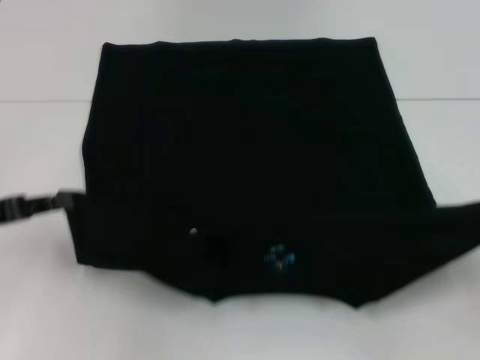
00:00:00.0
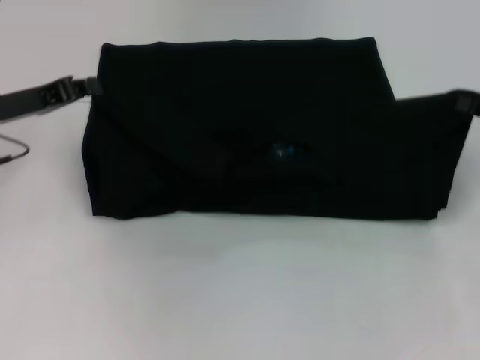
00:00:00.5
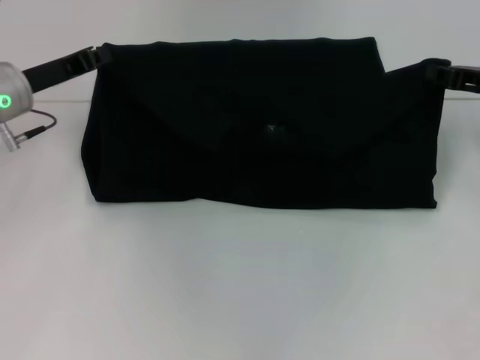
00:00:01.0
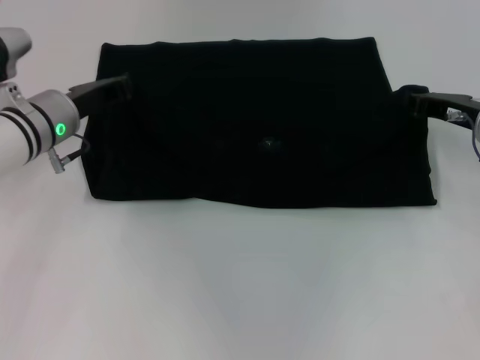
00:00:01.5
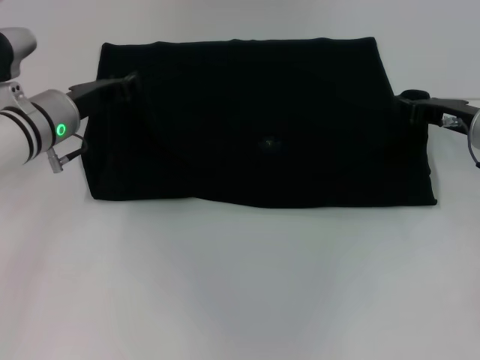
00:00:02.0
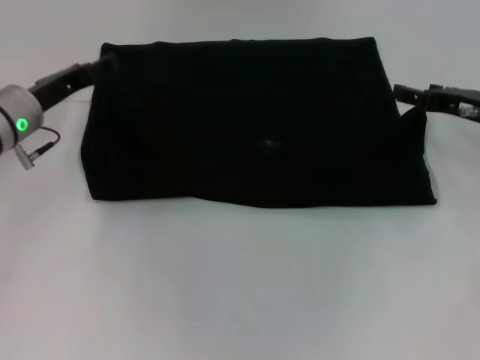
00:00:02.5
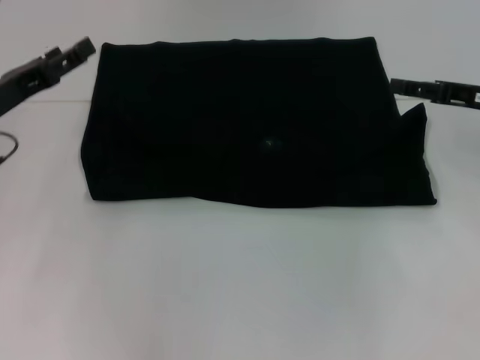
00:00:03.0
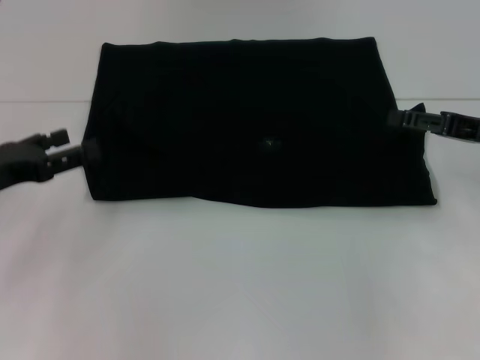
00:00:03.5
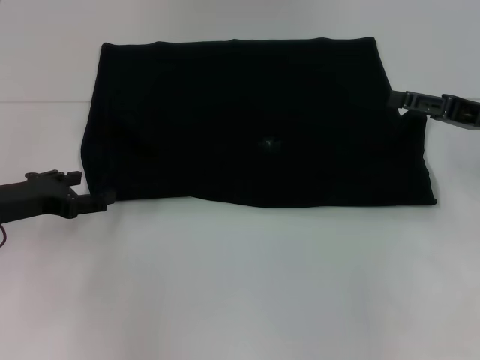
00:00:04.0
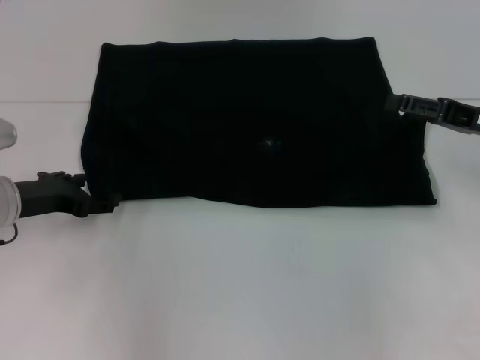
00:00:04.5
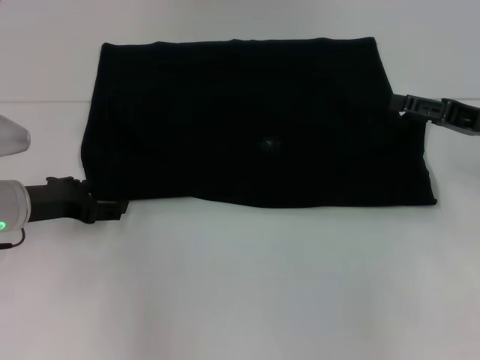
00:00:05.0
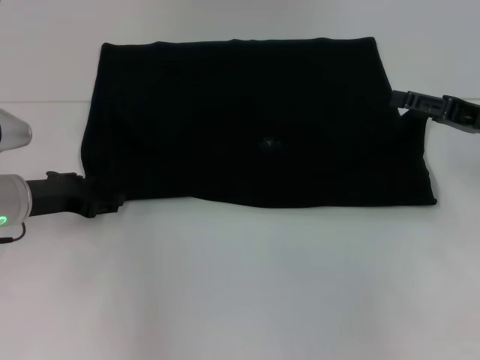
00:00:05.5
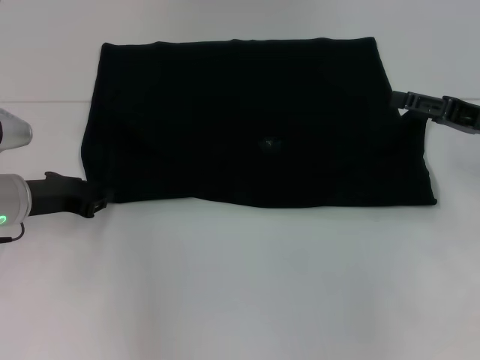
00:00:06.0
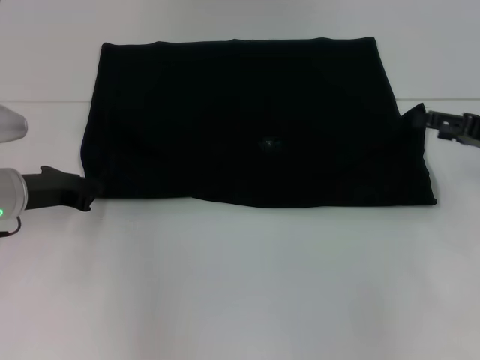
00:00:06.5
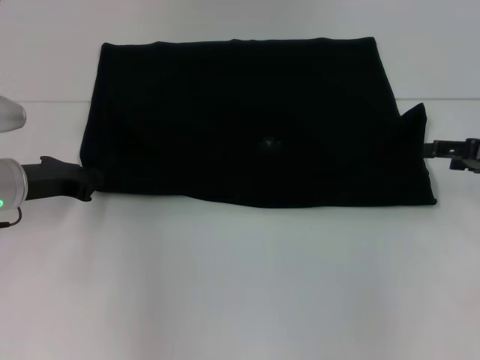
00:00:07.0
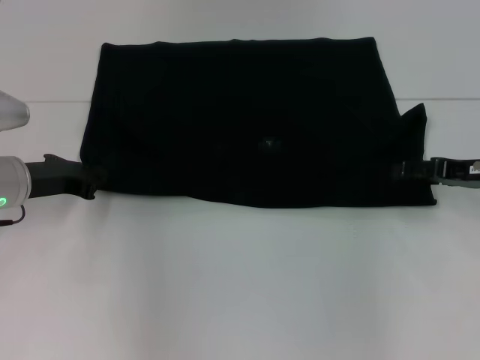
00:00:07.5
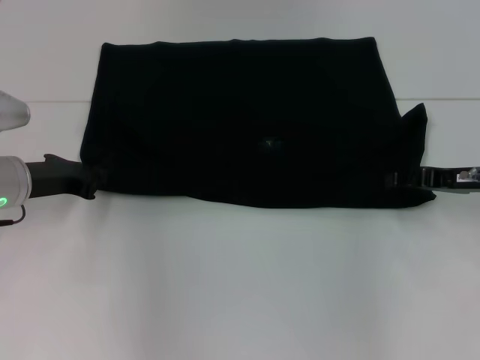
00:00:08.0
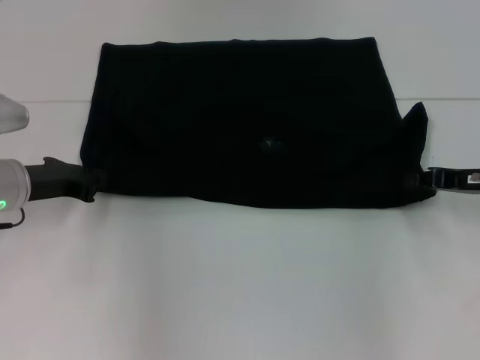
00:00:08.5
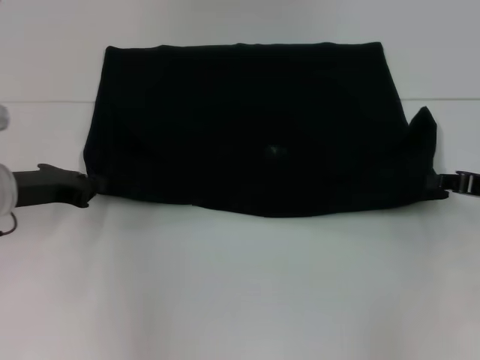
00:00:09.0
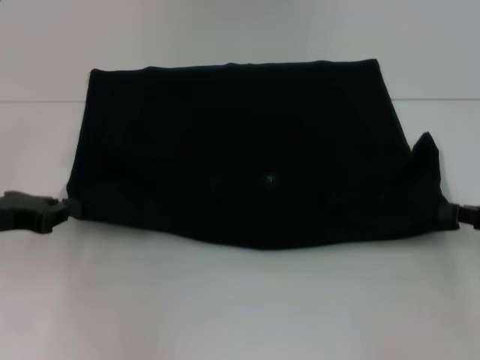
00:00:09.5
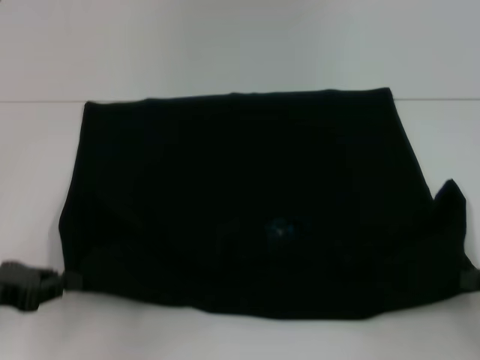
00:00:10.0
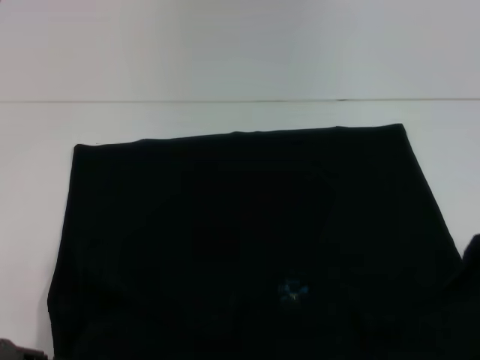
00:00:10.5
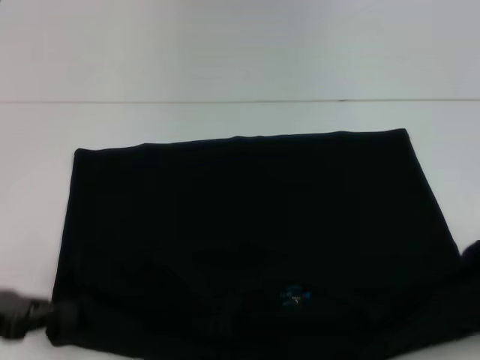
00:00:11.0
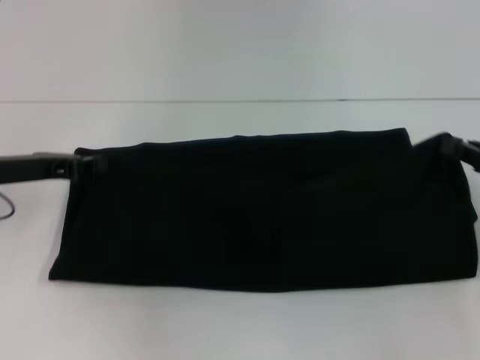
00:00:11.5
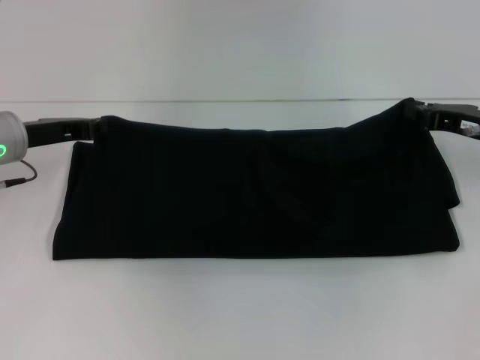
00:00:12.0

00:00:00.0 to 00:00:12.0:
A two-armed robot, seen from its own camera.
Step, 00:00:00.0 to 00:00:02.0: Fold the clothes with your left hand.
Step, 00:00:00.0 to 00:00:02.0: Fold the clothes with your right hand.
Step, 00:00:02.5 to 00:00:10.0: Pull the clothes with your left hand.
Step, 00:00:02.5 to 00:00:10.0: Pull the clothes with your right hand.
00:00:00.0 to 00:00:02.0: The left gripper shifts roughly 20 cm forward and to the right. Meanwhile the right gripper is displaced forward and to the left by approximately 20 cm.
00:00:02.0 to 00:00:04.0: The right gripper ends up about 5 cm from where it was, and opens, while the left gripper shifts approximately 10 cm backward and to the left, and opens.
00:00:04.0 to 00:00:06.0: The left gripper closes its fingers.
00:00:06.0 to 00:00:08.0: The left gripper closes its fingers.
00:00:08.0 to 00:00:10.0: The right gripper is displaced backward and to the right by about 15 cm, and closes, while the left gripper goes about 15 cm backward and to the left.
00:00:10.0 to 00:00:12.0: The left gripper heads forward, covering roughly 15 cm; the right gripper moves forward and to the left, approximately 20 cm.

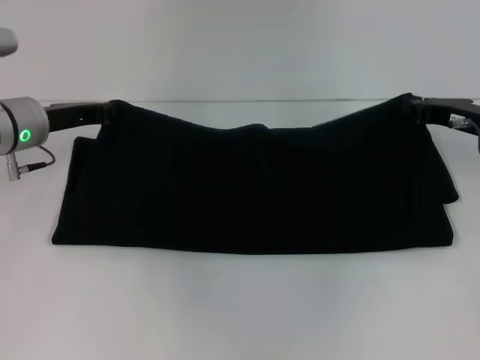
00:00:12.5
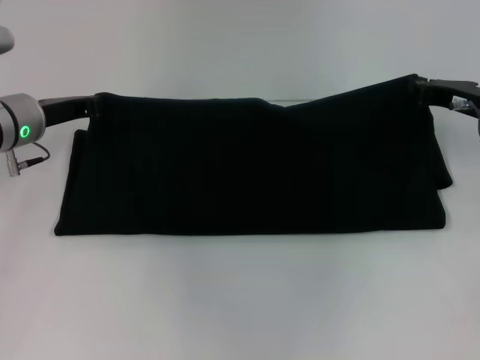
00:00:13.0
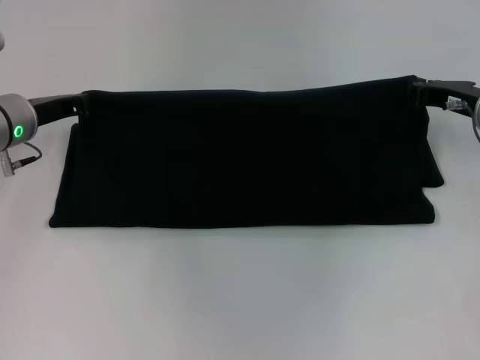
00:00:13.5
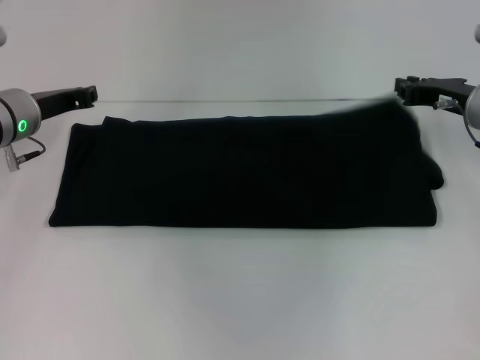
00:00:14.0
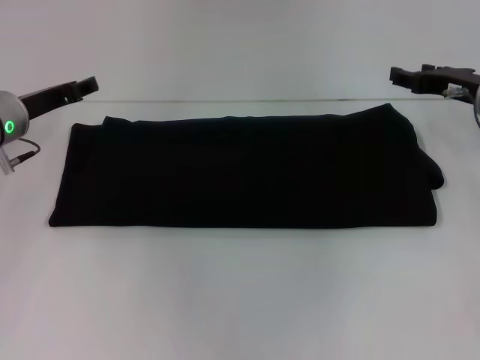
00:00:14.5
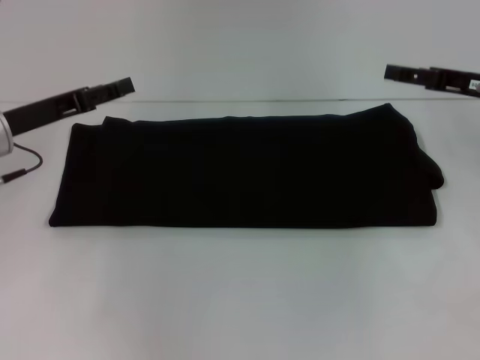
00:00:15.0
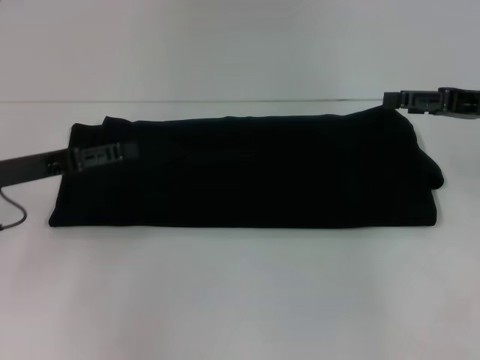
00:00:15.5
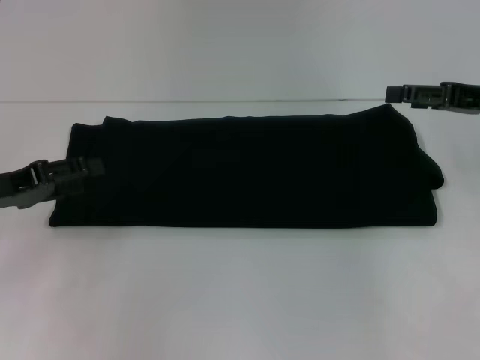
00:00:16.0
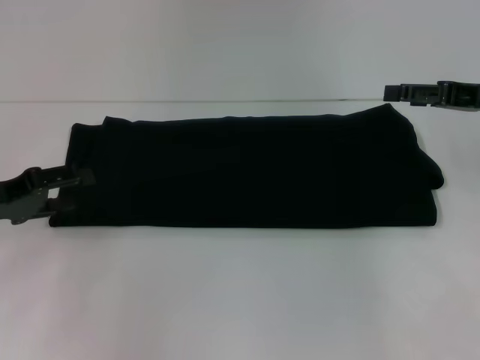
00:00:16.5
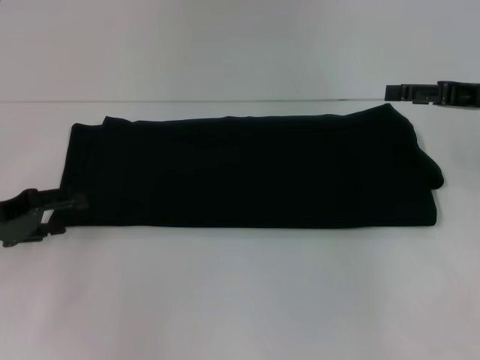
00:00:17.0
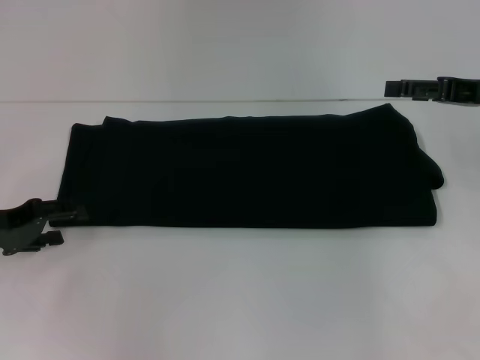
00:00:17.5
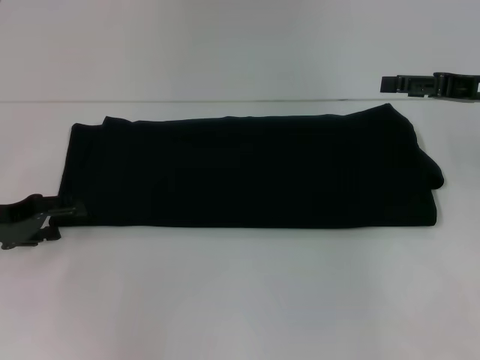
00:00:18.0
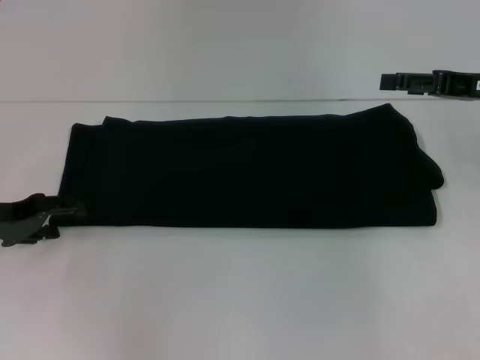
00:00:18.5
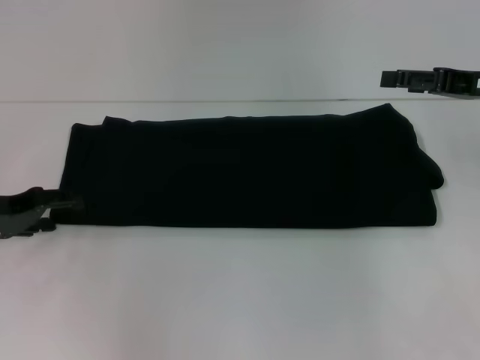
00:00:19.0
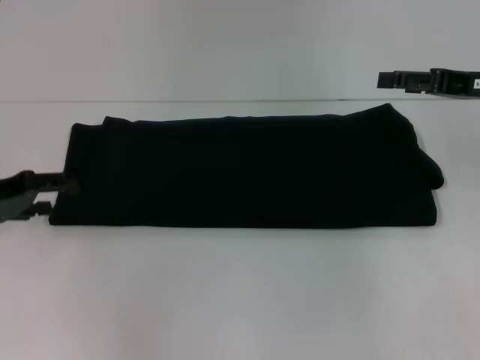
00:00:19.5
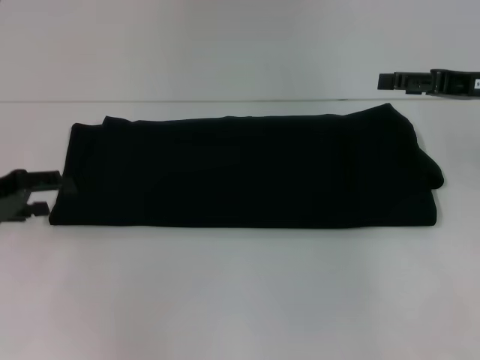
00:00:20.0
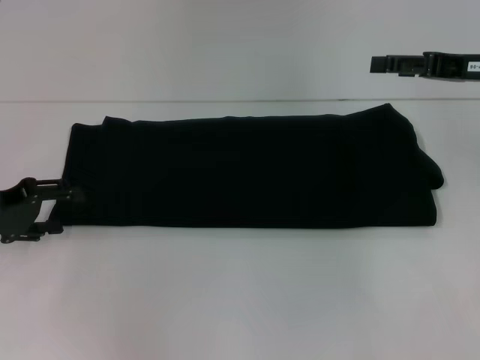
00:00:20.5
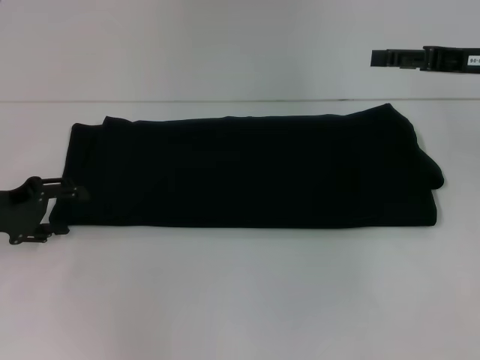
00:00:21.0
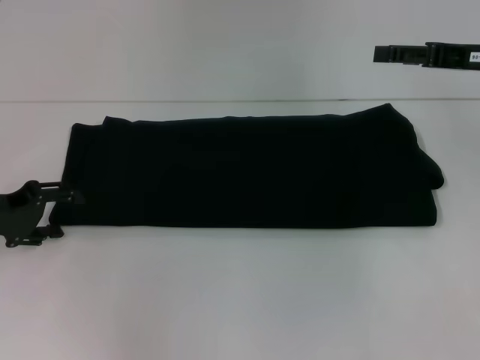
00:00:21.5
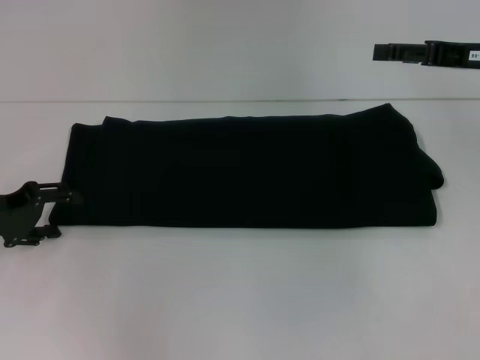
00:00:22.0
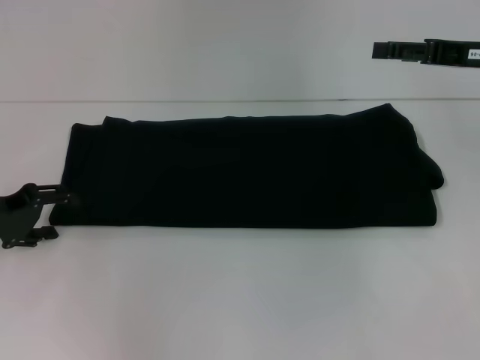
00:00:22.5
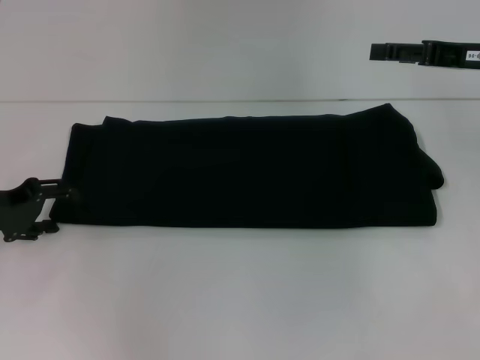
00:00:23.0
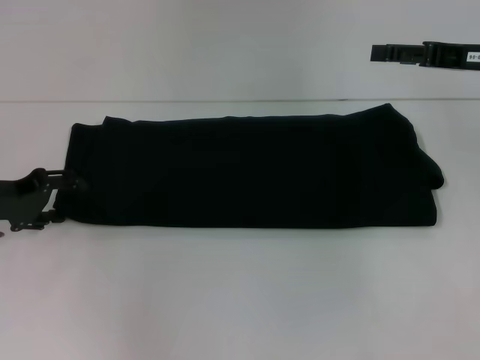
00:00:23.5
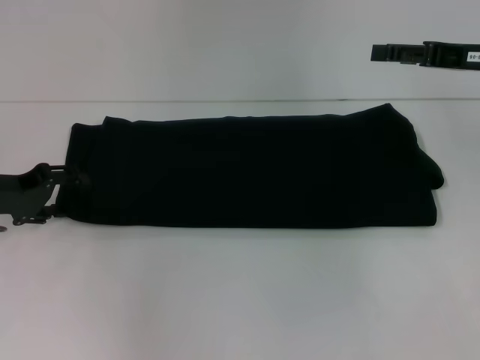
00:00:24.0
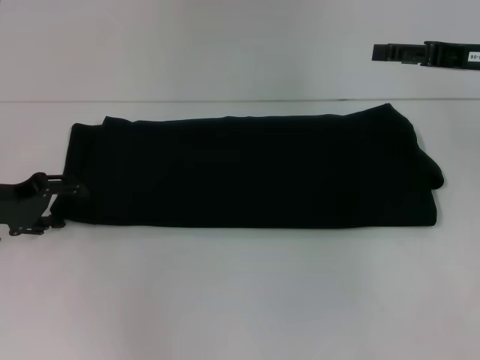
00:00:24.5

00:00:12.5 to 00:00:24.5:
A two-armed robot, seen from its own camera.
00:00:12.5 to 00:00:14.5: The left gripper opens.
00:00:14.5 to 00:00:16.5: The right gripper changes place by about 5 cm, and opens. The left gripper heads backward and to the left, covering approximately 10 cm.
00:00:16.5 to 00:00:20.5: The grippers move only a little.
00:00:20.5 to 00:00:24.5: The grippers move only a little.

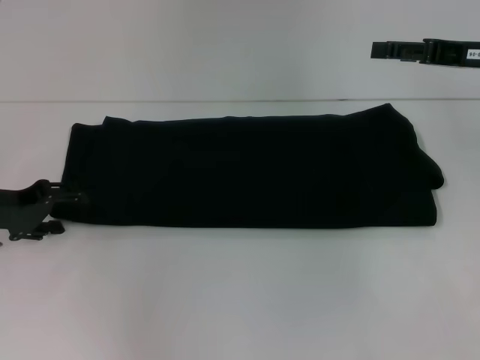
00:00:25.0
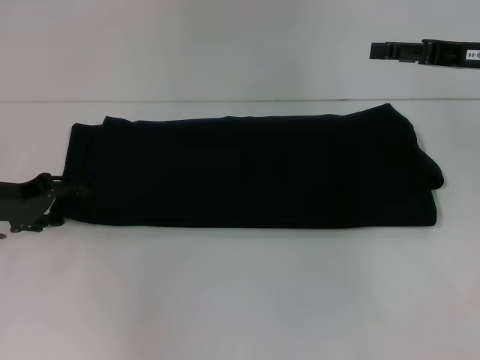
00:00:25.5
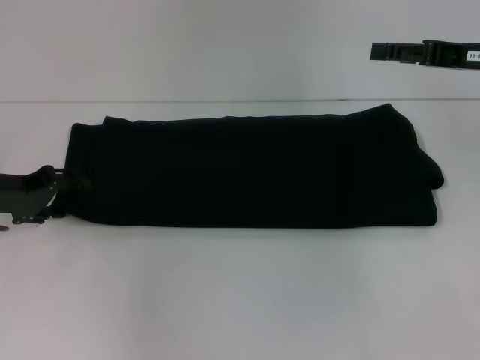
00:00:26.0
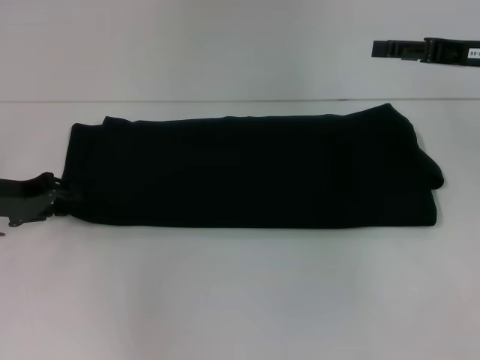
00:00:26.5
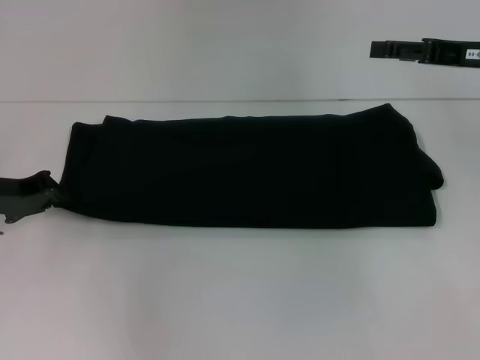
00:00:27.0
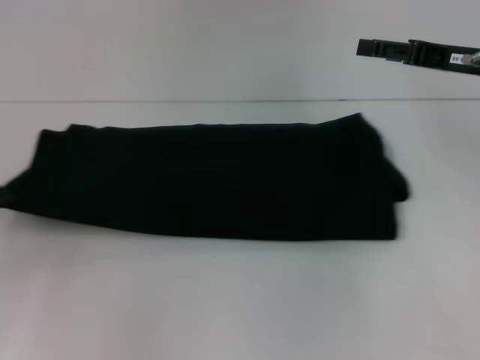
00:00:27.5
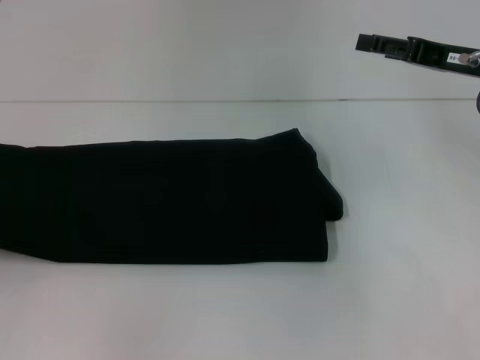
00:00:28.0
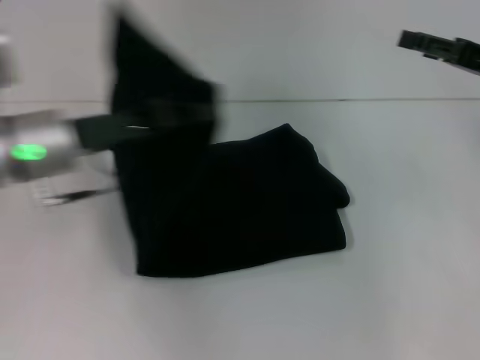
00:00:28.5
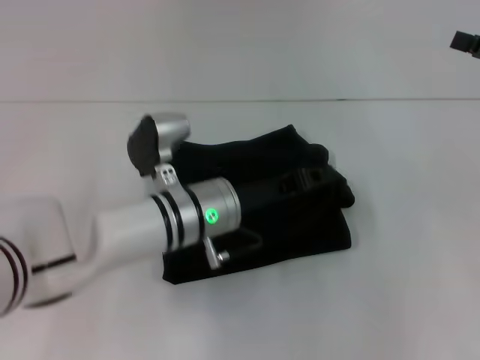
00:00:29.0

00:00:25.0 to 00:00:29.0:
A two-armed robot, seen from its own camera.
00:00:25.0 to 00:00:27.0: The left gripper closes.
00:00:27.0 to 00:00:29.0: The left gripper is displaced to the right by roughly 25 cm, while the right gripper is displaced to the right by about 5 cm.
